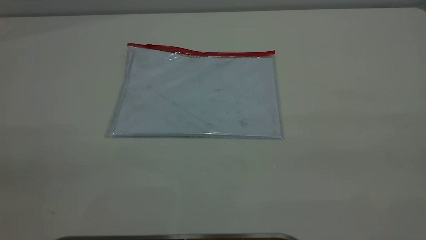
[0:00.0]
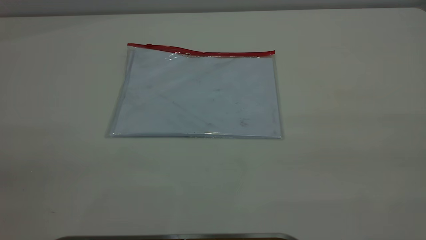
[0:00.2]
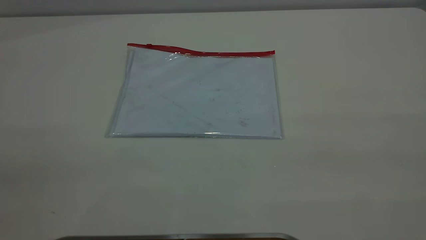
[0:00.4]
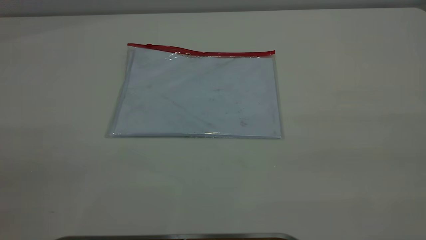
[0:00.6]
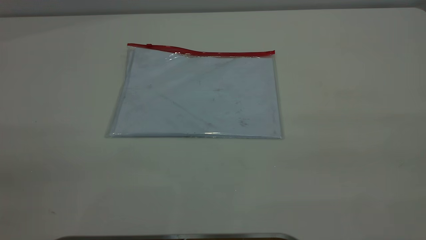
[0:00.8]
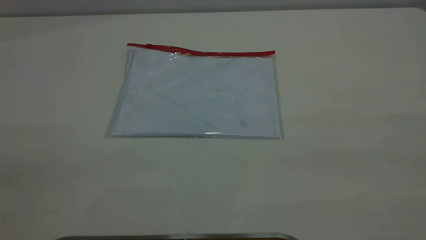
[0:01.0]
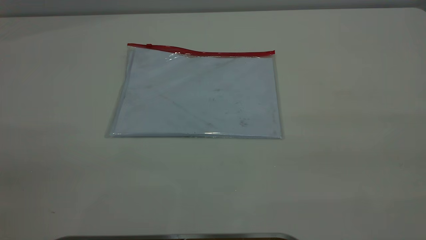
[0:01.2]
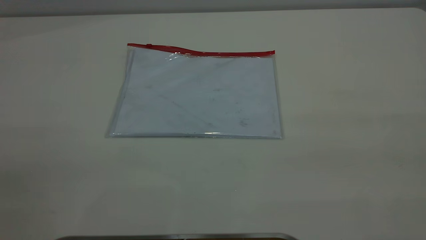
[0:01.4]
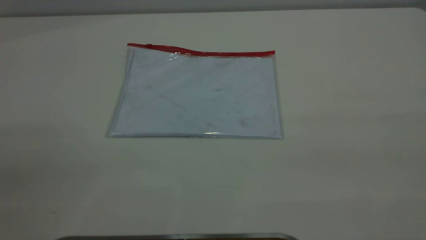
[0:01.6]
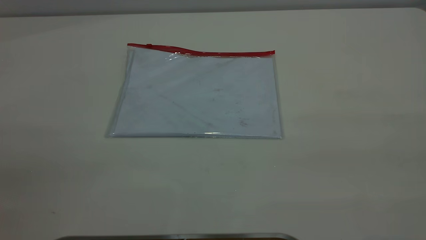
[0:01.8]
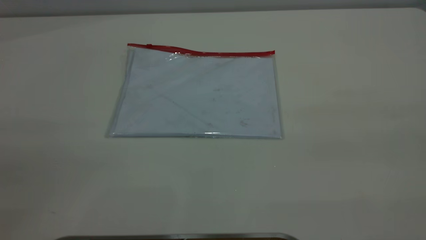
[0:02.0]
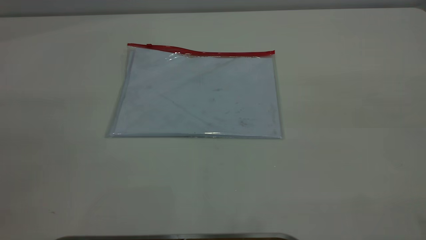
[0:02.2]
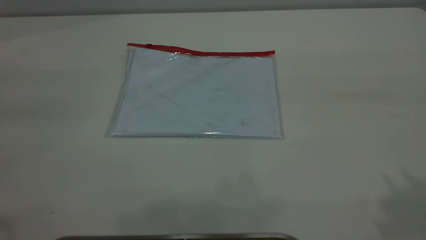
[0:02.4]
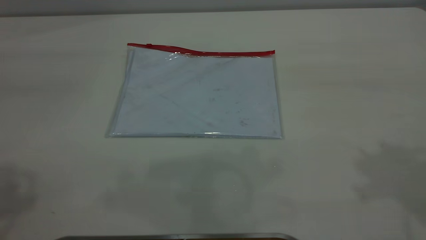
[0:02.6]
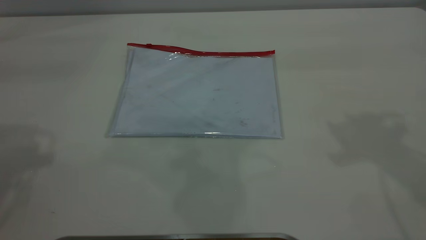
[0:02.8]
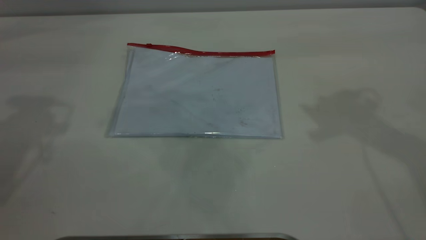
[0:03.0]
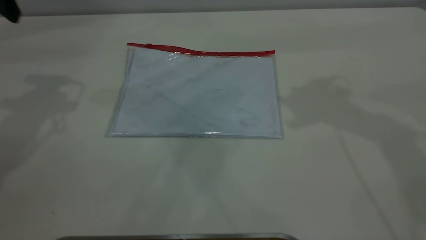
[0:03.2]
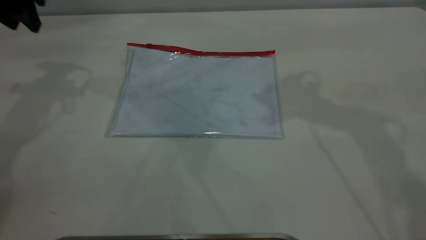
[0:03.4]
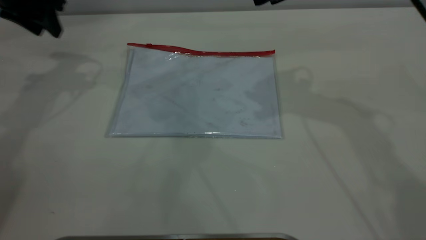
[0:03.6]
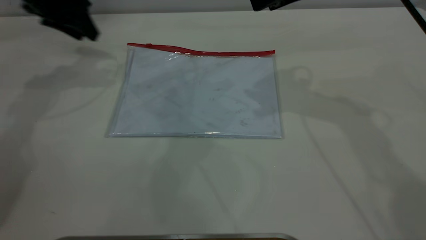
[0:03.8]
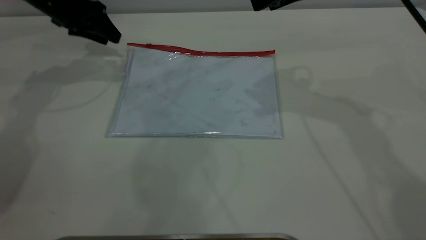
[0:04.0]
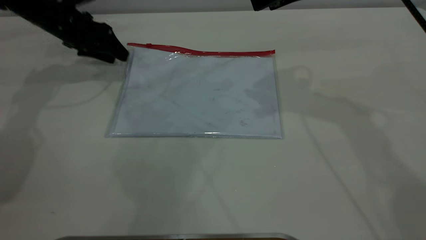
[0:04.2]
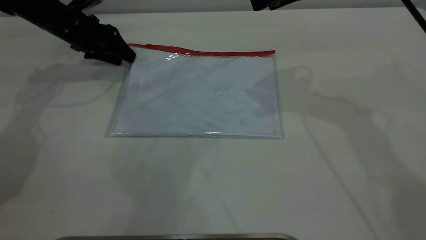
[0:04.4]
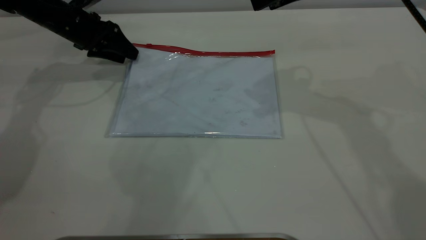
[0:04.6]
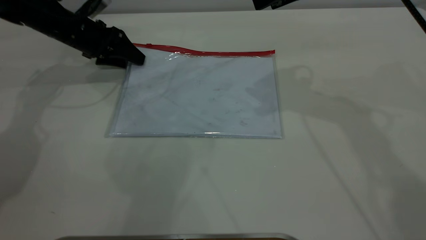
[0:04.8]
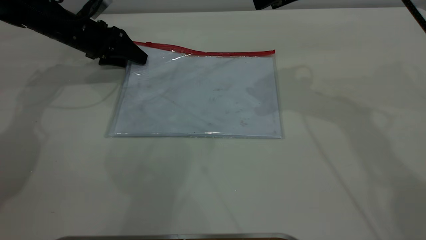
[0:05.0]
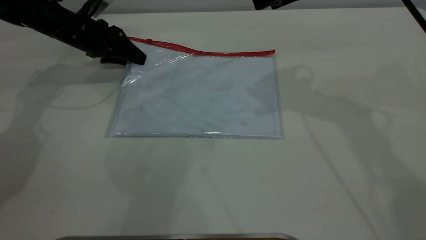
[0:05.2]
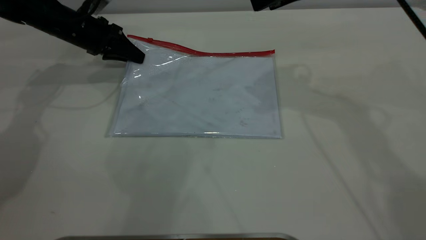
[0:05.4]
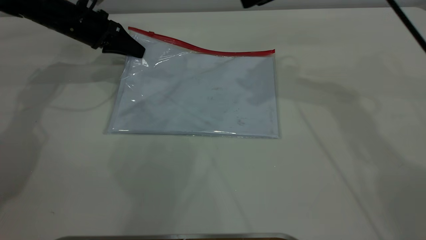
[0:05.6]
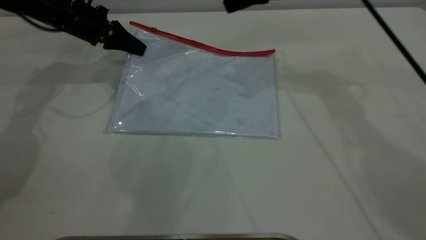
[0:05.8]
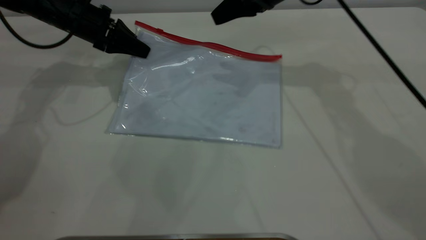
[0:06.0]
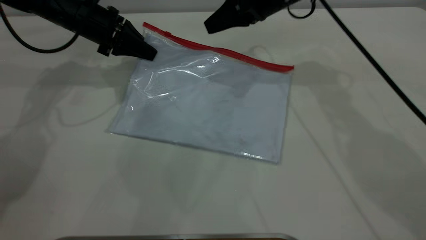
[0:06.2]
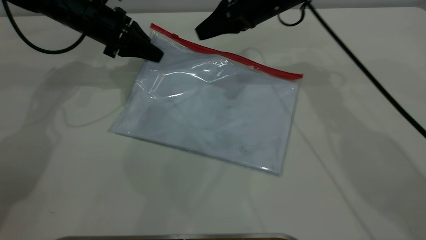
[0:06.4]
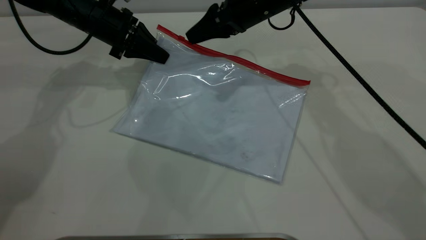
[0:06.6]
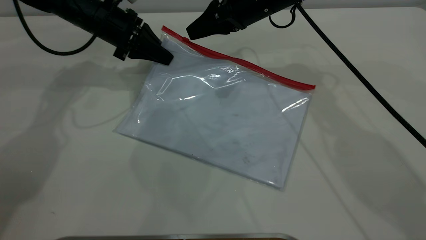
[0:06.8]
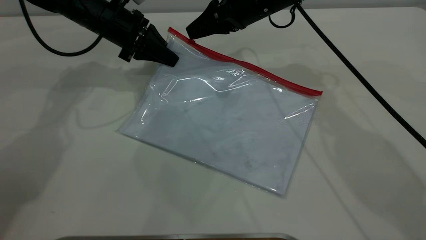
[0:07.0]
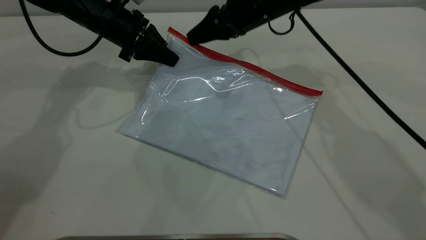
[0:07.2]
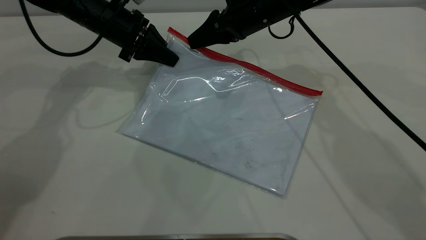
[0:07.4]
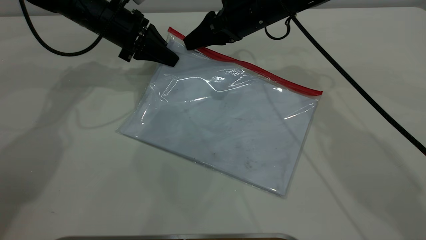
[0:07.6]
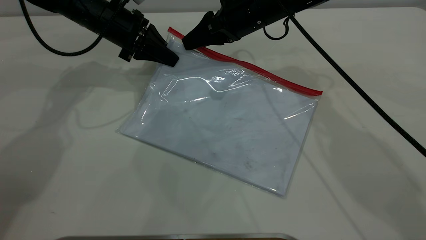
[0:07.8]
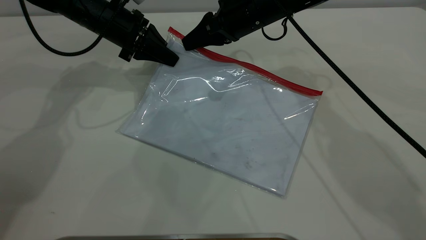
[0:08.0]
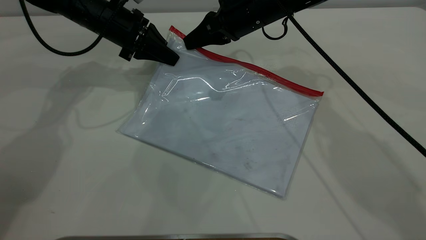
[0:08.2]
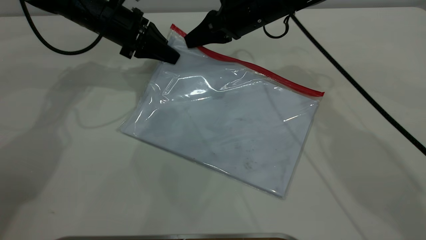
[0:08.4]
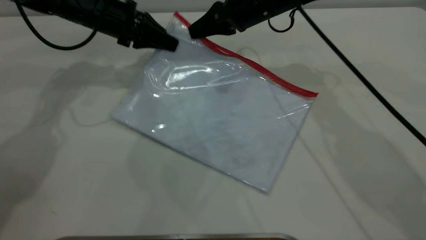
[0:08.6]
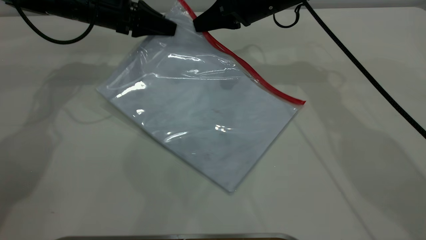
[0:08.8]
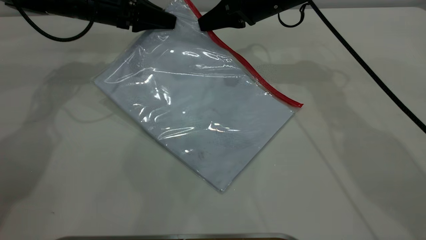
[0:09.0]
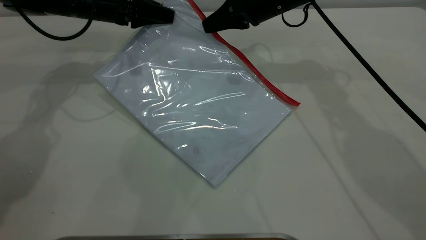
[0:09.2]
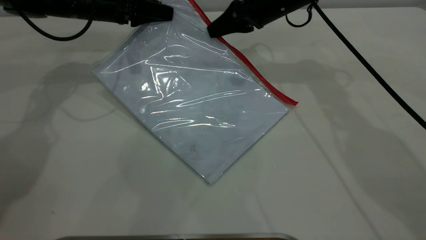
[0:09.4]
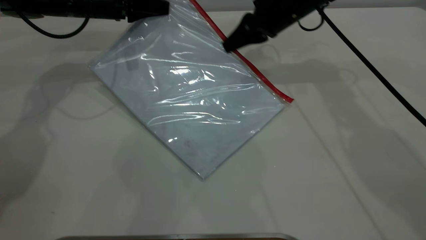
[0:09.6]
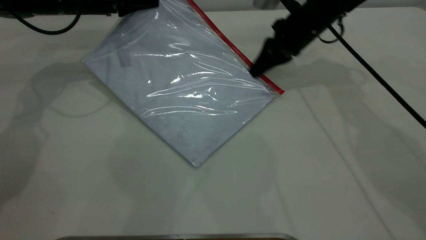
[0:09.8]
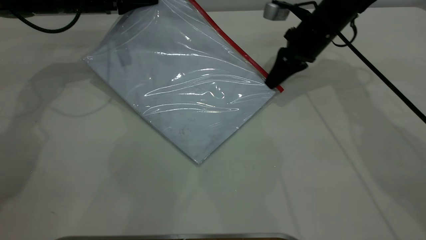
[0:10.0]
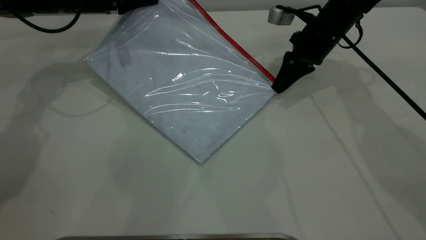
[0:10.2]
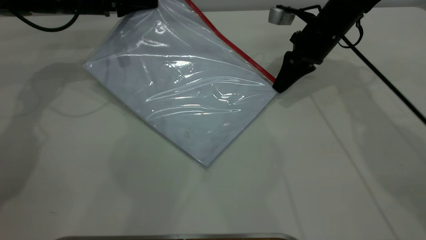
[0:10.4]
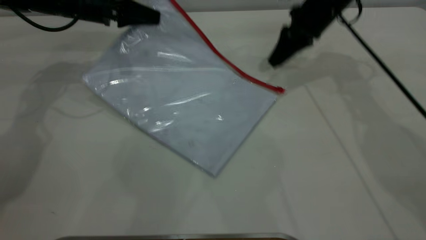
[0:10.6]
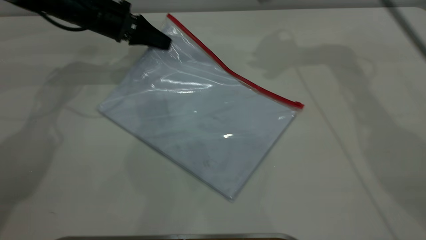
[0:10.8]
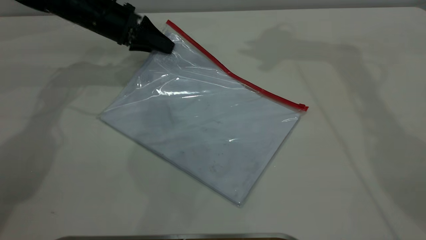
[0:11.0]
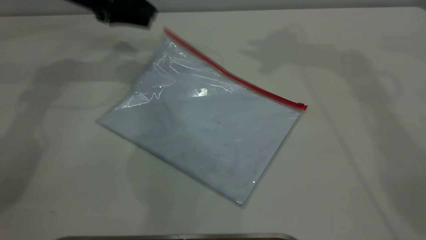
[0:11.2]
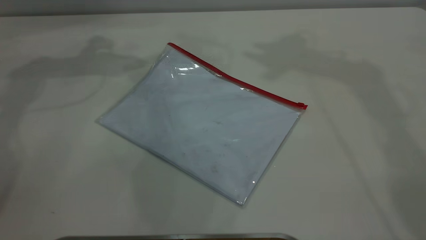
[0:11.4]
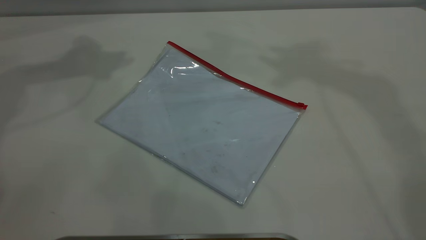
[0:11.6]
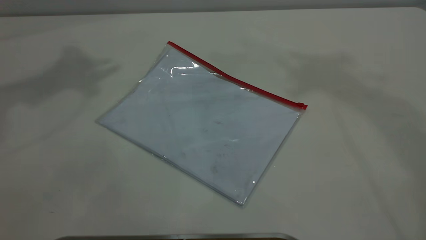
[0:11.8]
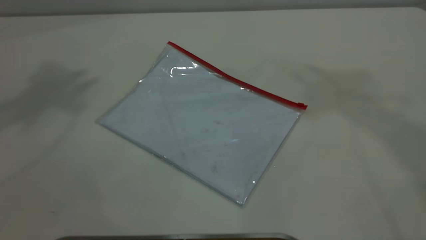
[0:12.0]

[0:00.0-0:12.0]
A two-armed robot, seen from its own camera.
Step, 0:00.0 to 0:05.8: Pick up the transparent plastic bag with the left gripper.
Step, 0:06.0 to 0:10.4: Pulling up the zipper on the transparent plastic bag with the right gripper to close it.
Step, 0:10.8 to 0:11.2: Place the transparent plastic bag.
0:00.0 to 0:01.6: Neither gripper changes place.
0:03.0 to 0:04.4: The right gripper moves to the left, downward and forward, some 10 cm, while the left gripper heads downward and forward, covering about 25 cm.
0:04.4 to 0:06.0: The right gripper shifts roughly 10 cm forward and downward. Meanwhile the left gripper closes.
0:06.0 to 0:07.6: The left gripper moves to the right, some 5 cm; the right gripper shifts by about 5 cm.
0:07.6 to 0:09.0: The right gripper closes its fingers.
0:09.0 to 0:10.4: The right gripper travels to the right by approximately 10 cm.
0:10.4 to 0:12.0: The two grippers go approximately 50 cm upward. The right gripper opens up, while the left gripper opens up.

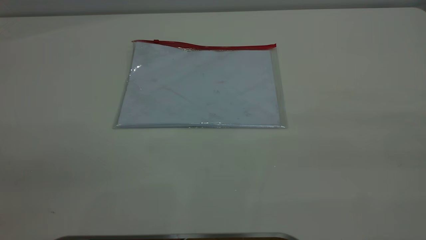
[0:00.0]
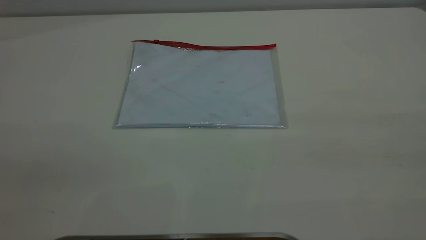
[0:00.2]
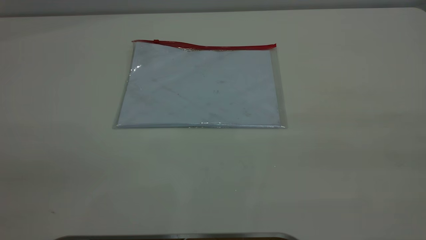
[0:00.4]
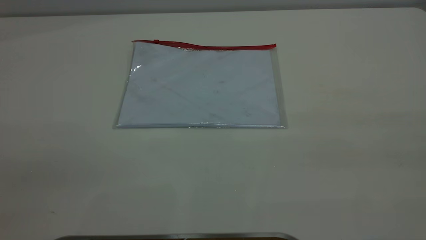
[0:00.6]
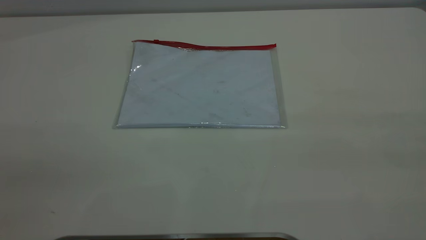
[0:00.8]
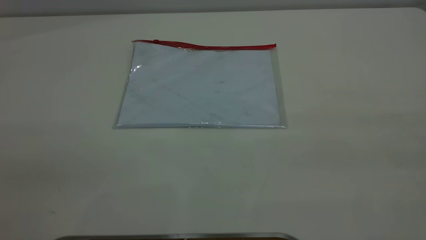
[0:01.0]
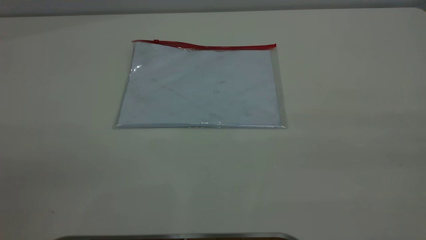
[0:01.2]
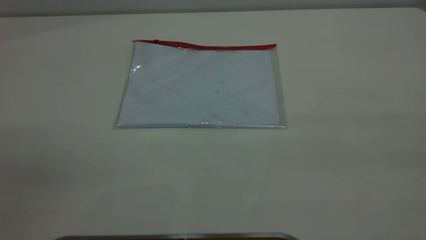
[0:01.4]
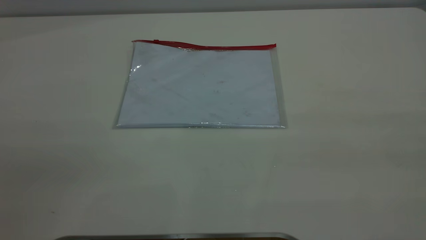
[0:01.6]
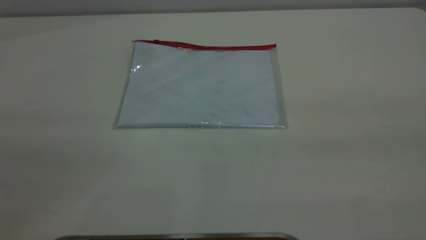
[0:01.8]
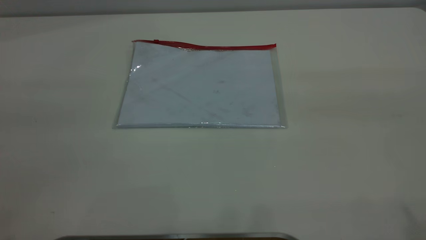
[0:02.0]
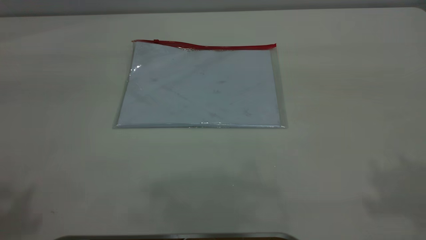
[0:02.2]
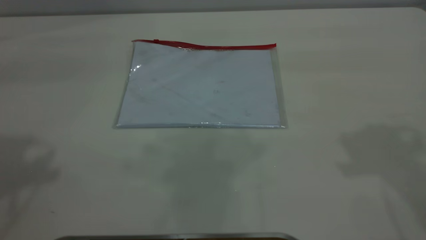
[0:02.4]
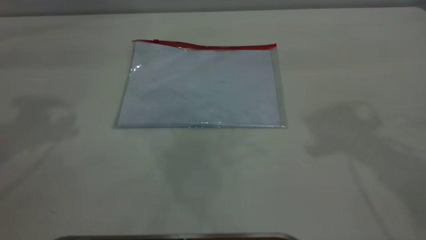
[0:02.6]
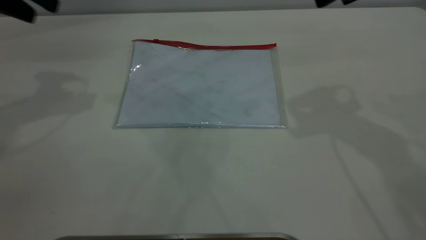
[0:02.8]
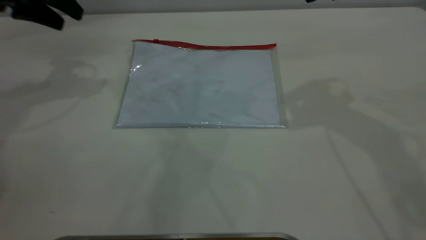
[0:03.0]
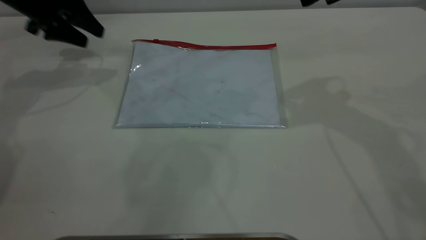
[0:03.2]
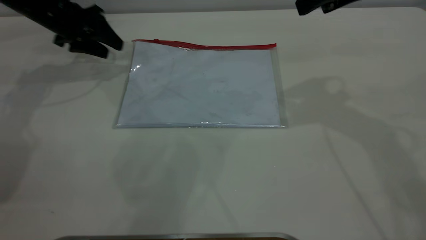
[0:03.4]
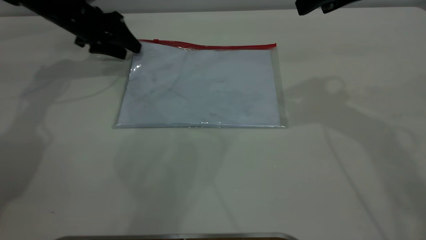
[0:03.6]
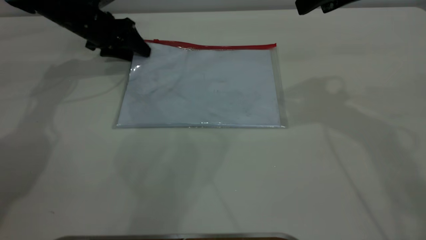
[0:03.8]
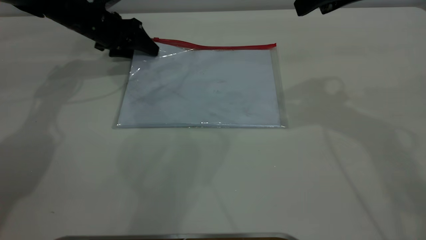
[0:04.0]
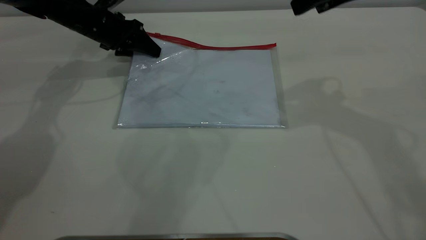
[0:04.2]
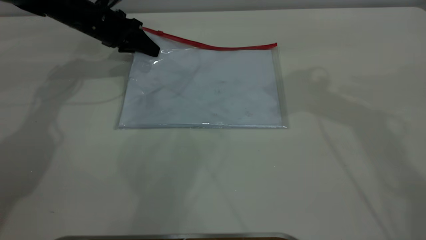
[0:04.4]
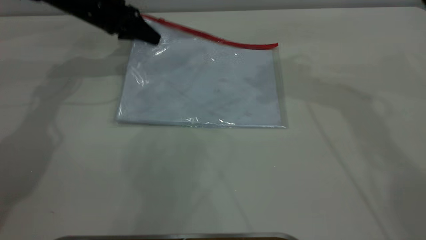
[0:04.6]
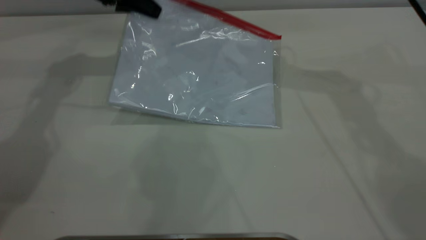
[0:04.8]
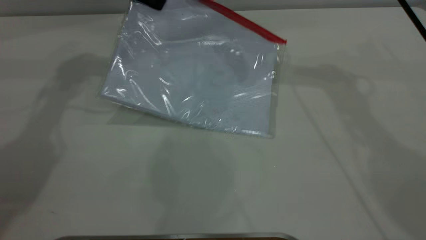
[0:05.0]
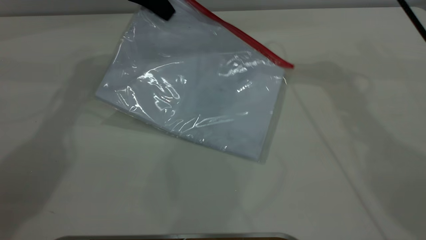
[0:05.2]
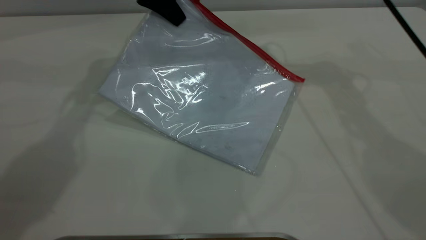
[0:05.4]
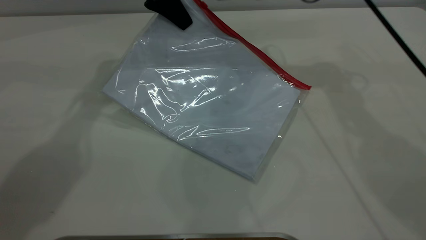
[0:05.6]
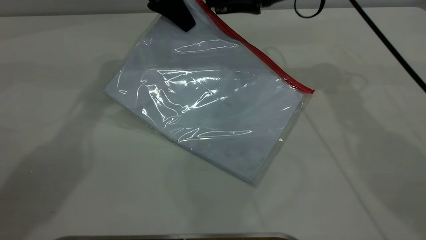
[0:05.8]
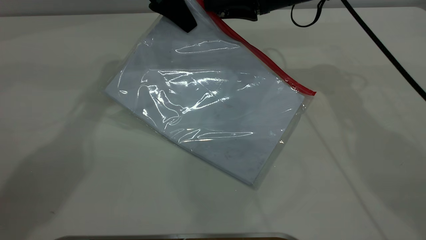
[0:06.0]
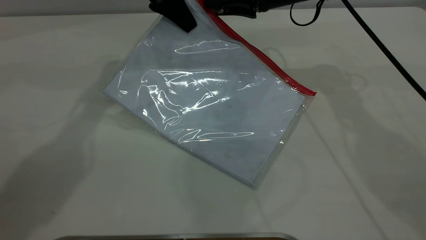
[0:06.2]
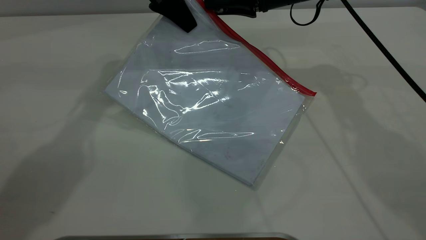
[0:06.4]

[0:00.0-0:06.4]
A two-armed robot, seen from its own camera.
Step, 0:00.0 to 0:04.4: Pick up the transparent plastic bag with the left gripper.
0:01.6 to 0:03.2: The left gripper goes about 60 cm forward and downward.
0:03.2 to 0:04.8: The left gripper travels to the right by approximately 10 cm, and closes its fingers. The right gripper goes roughly 10 cm forward and to the left.
0:04.8 to 0:06.4: The right gripper is displaced downward by roughly 10 cm, while the left gripper shifts some 10 cm to the right.
